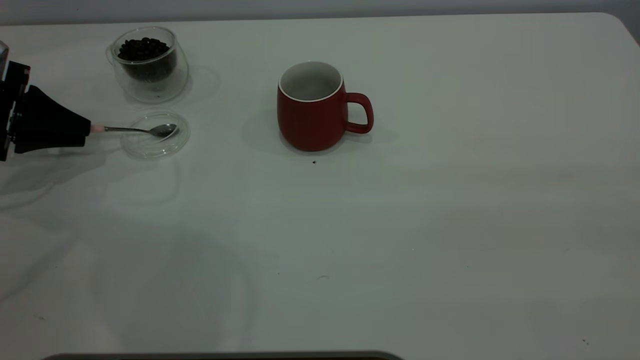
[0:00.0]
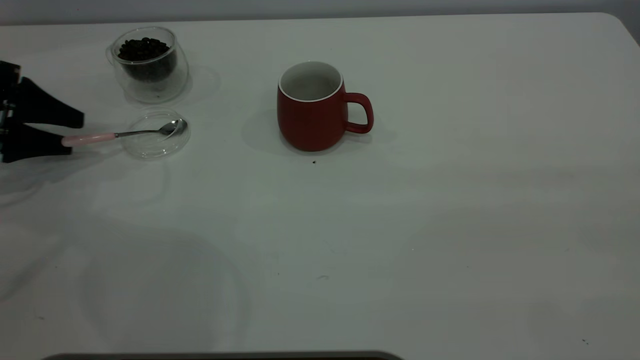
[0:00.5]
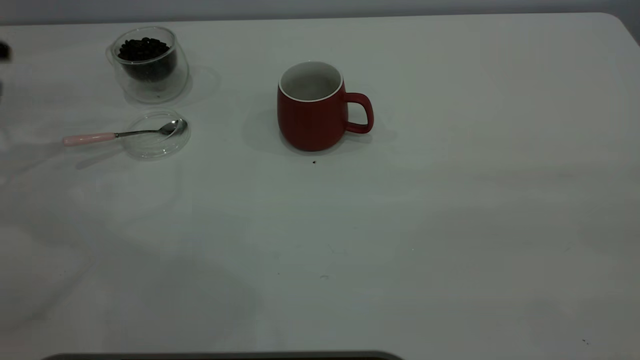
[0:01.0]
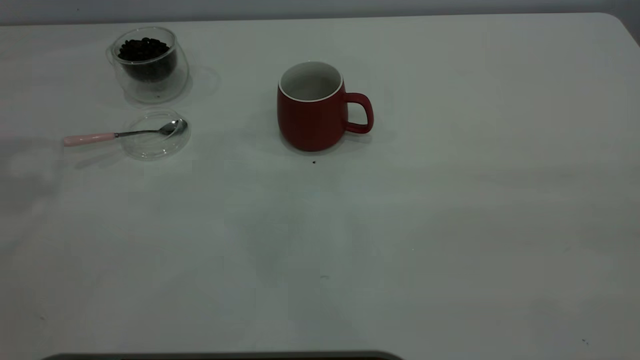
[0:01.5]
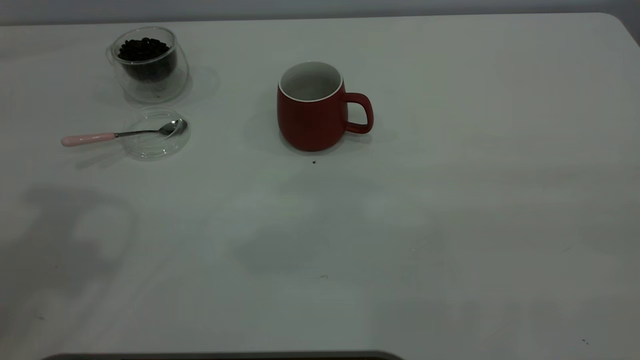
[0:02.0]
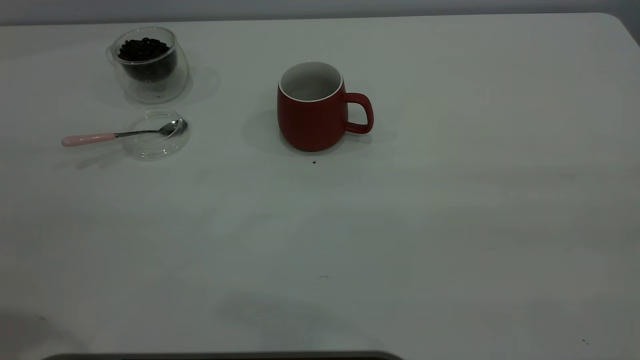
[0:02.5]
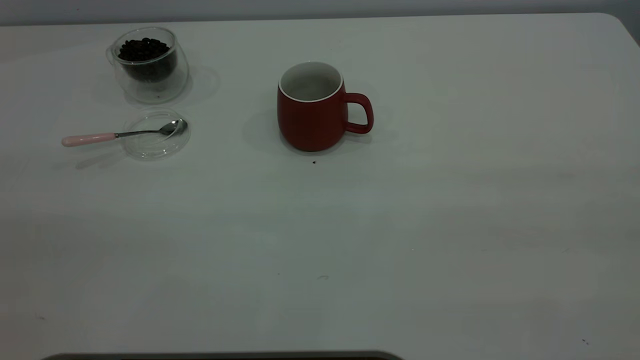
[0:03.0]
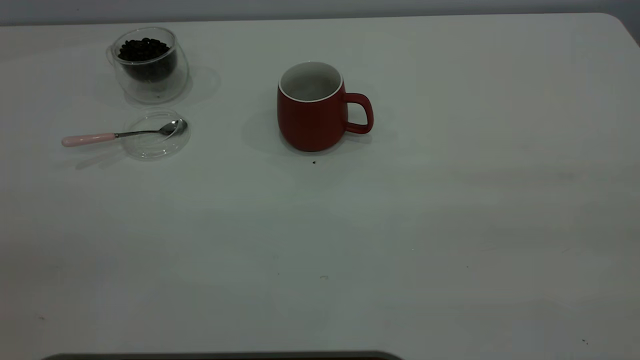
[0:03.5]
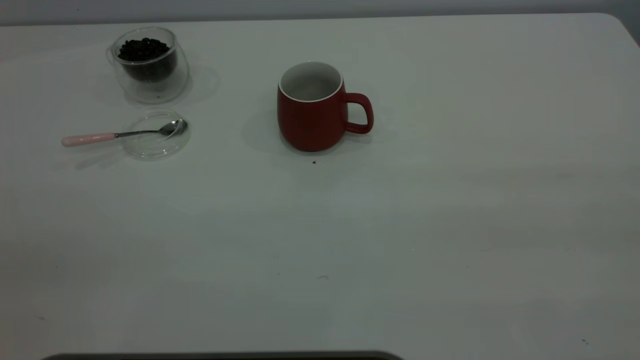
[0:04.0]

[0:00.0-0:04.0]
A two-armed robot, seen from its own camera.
Task of the whole recording: the right gripper place the red cup in the center of the table, the left gripper take the pink spoon from the cup lid and scoop out the coffee beans from the coffee cup and put them into the red cup, the left gripper put the spoon back into the cup lid.
0:00.0 to 0:02.0: The left gripper moves upward, backward and to the right, approximately 35 cm, and opens its fingers.

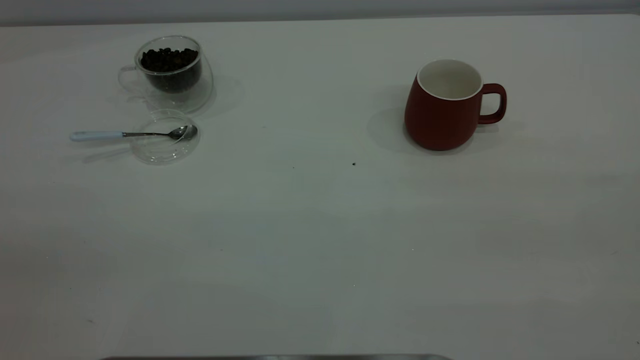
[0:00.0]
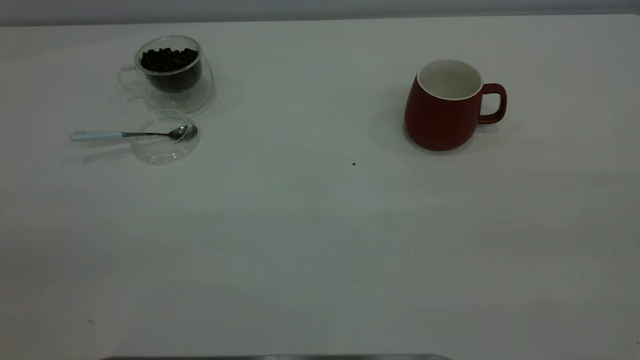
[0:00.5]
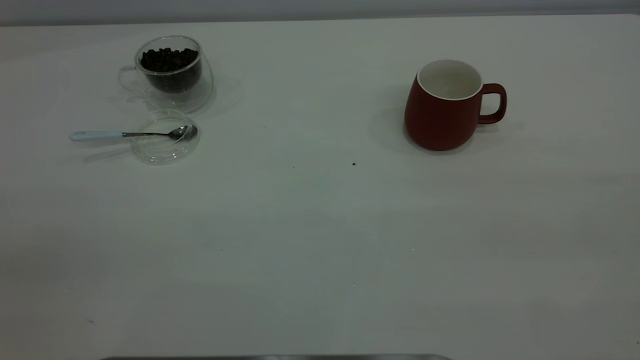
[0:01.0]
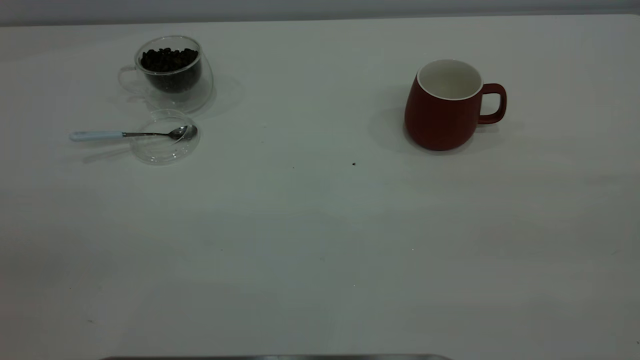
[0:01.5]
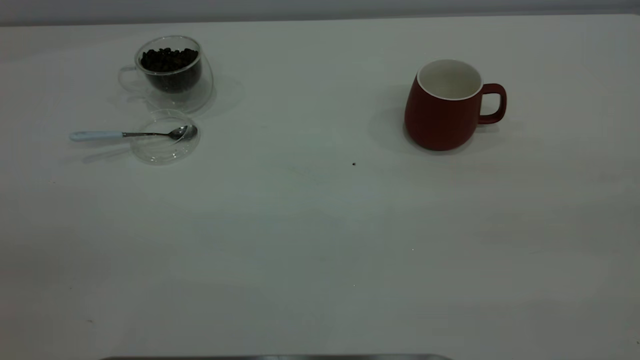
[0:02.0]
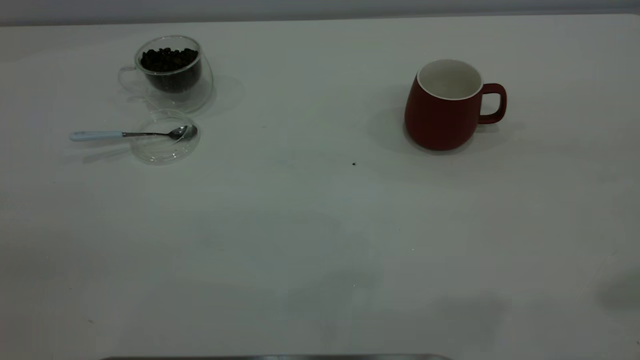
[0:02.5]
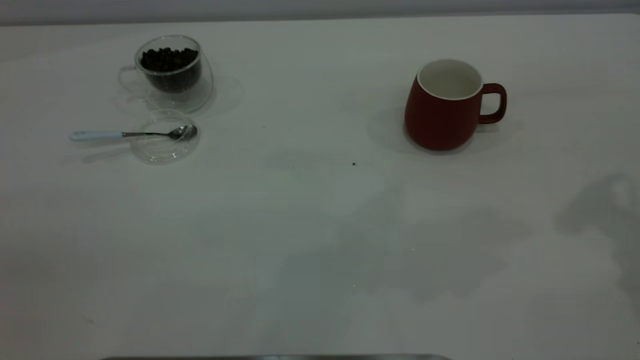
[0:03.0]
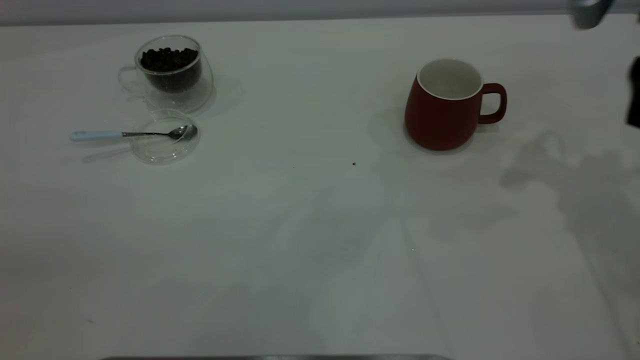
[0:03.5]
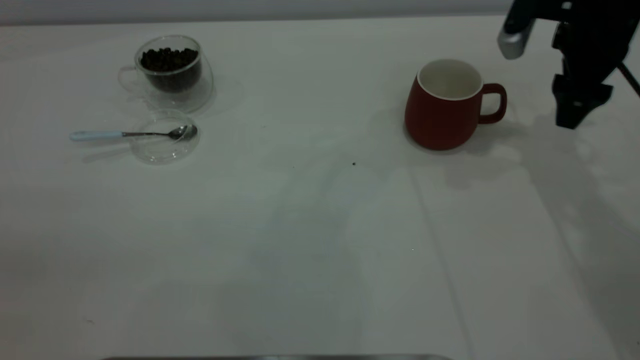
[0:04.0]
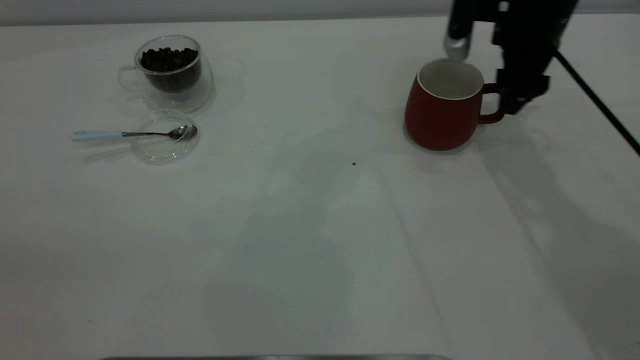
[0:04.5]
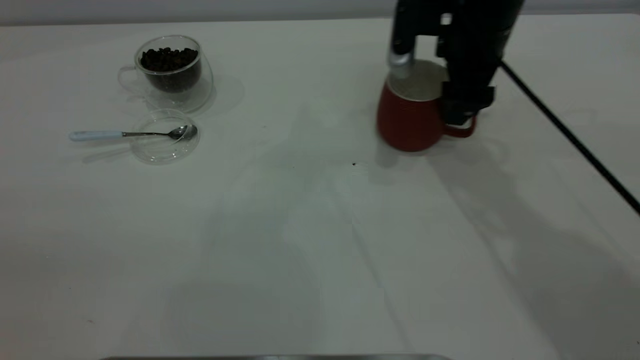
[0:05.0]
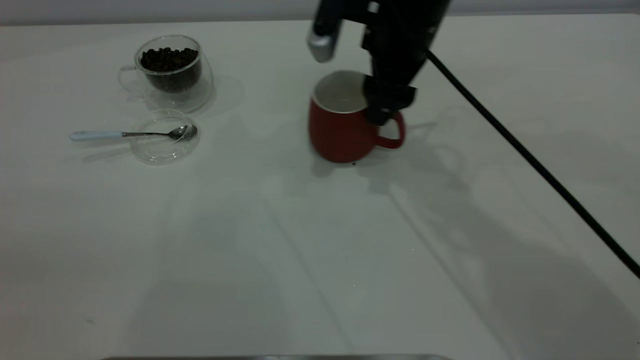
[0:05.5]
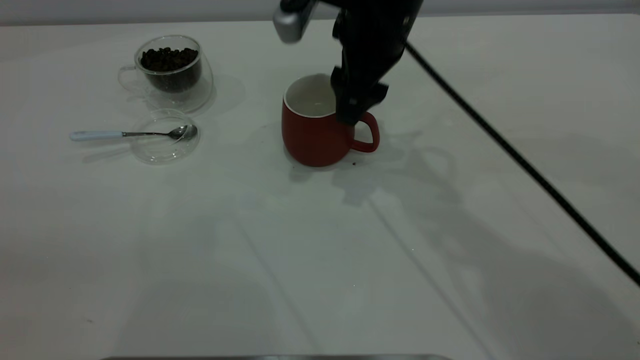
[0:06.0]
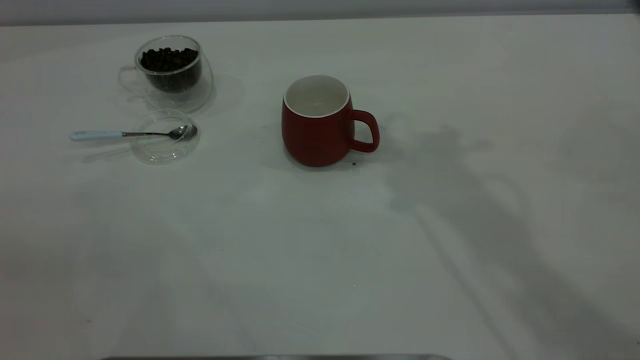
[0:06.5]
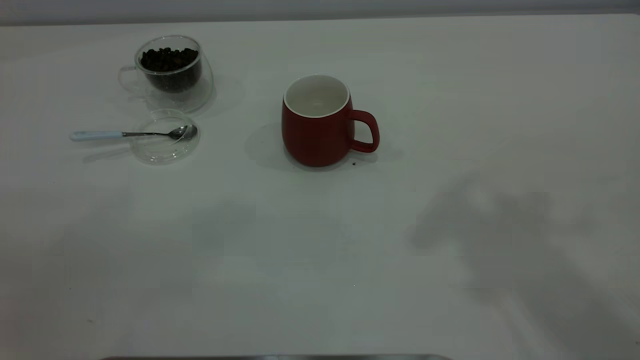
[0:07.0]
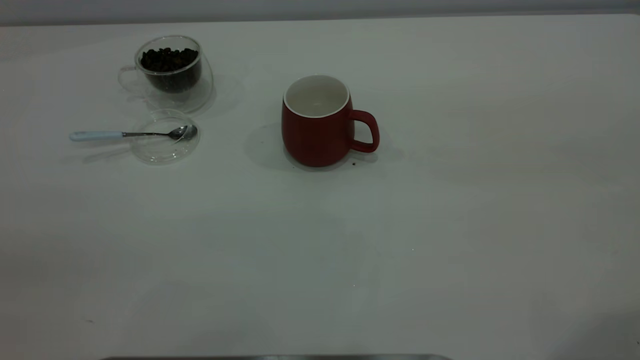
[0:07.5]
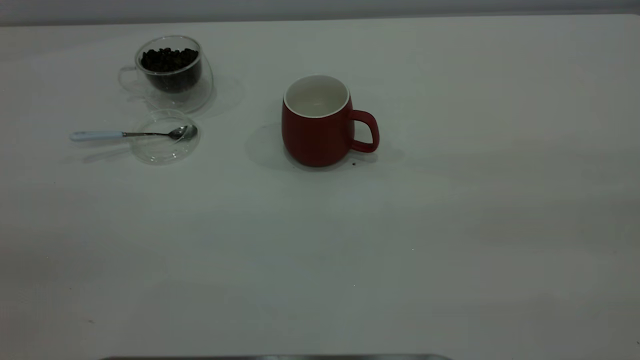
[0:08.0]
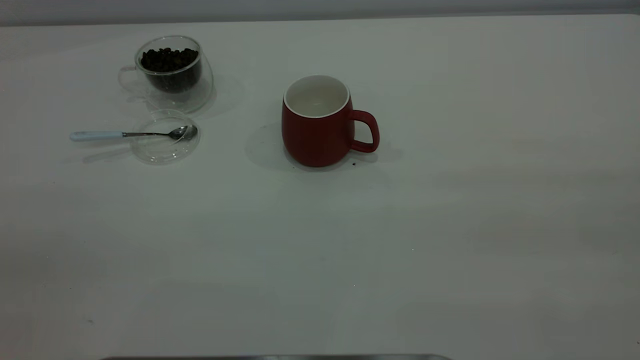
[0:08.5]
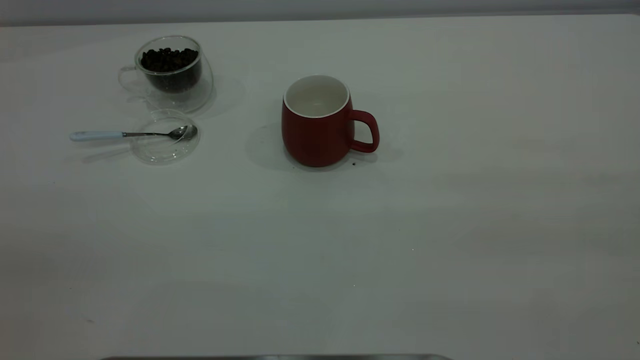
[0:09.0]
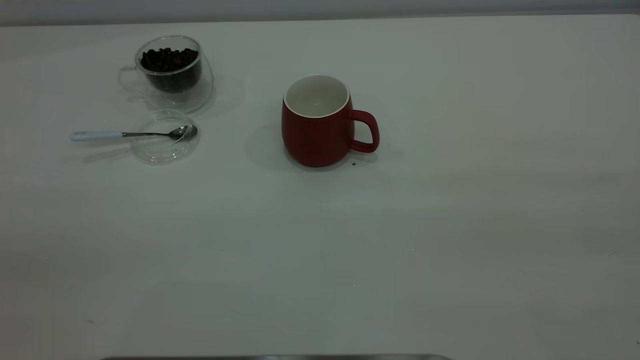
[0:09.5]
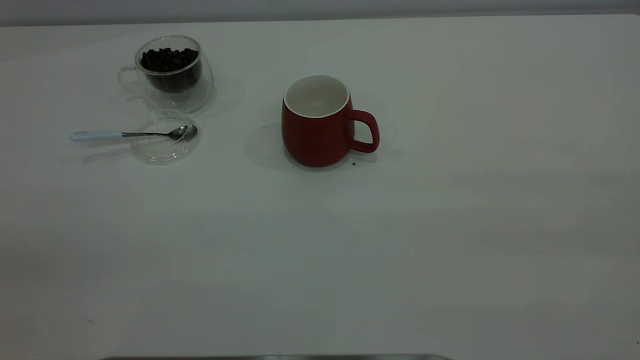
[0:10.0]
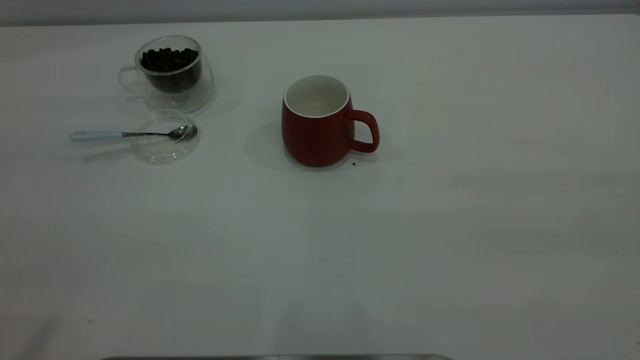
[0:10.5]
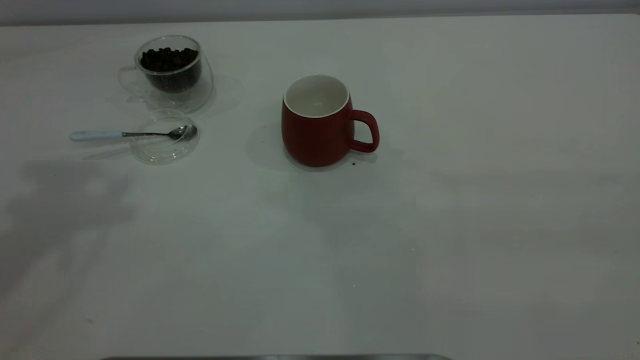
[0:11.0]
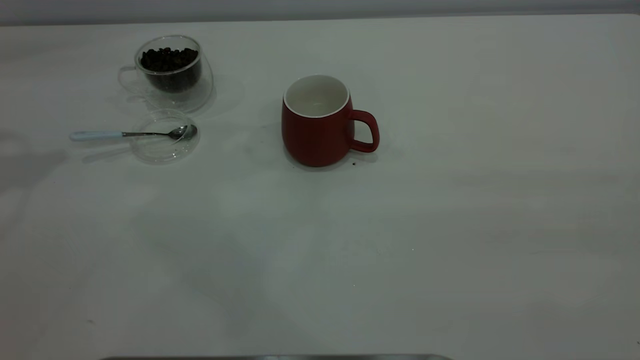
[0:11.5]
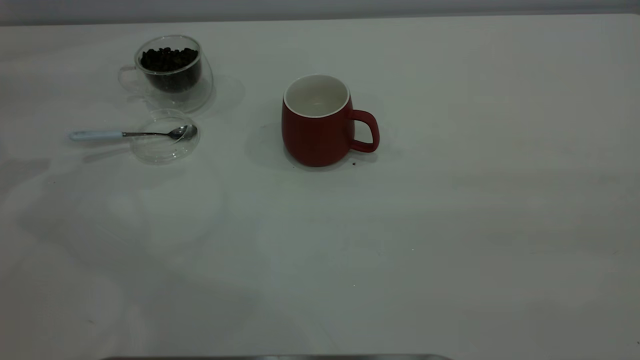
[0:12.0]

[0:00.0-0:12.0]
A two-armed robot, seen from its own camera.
Task of the whole recording: the right gripper place the red cup in the center of the table, the left gripper take the blue spoon from the cup lid and scoop out the coffee beans from the coffee cup and put them into the red cup, the left gripper put the spoon back into the cup lid.
Step, 0:00.0 to 0:06.0: Move the cup to the center of view.
0:02.0 to 0:04.0: The right gripper shifts roughly 50 cm forward and downward.
0:04.0 to 0:06.0: The right gripper is displaced to the left by about 20 cm.
0:06.0 to 0:08.0: The right gripper is displaced backward, to the right and upward by approximately 50 cm.

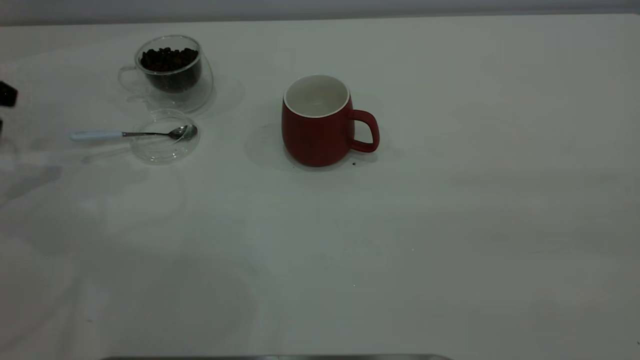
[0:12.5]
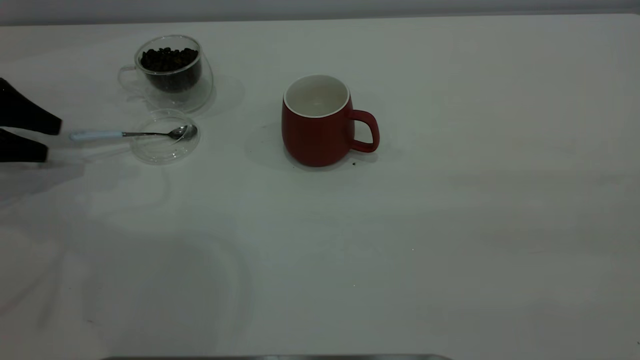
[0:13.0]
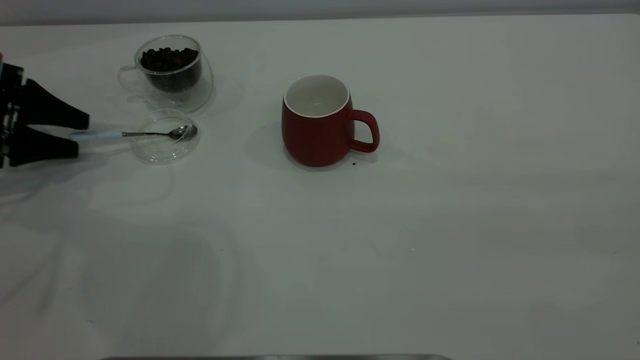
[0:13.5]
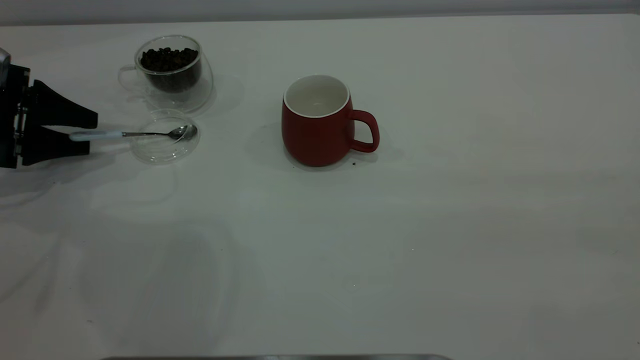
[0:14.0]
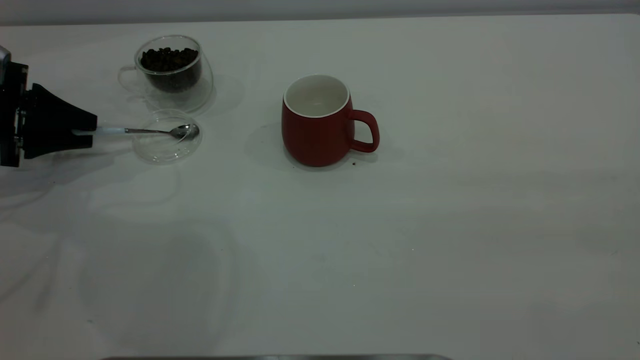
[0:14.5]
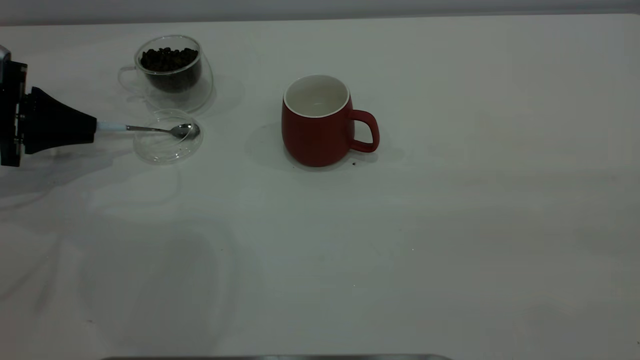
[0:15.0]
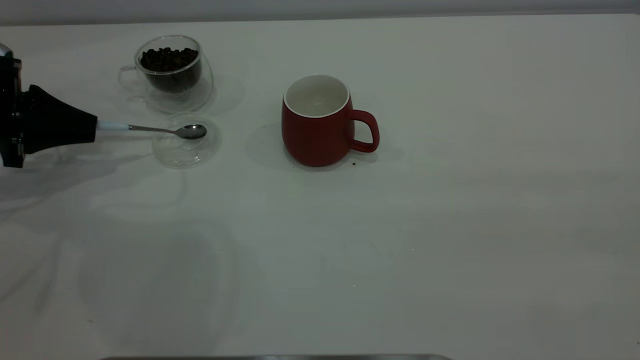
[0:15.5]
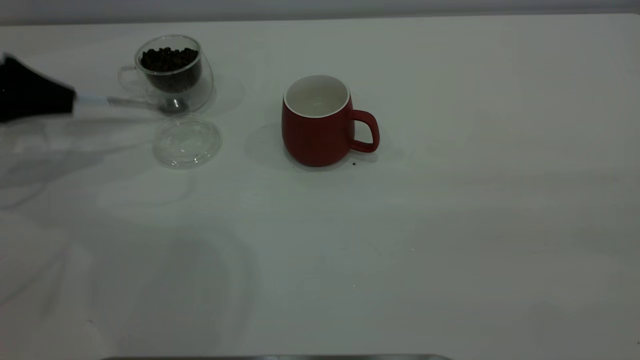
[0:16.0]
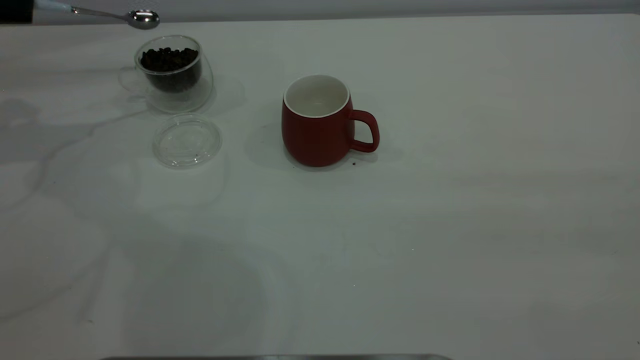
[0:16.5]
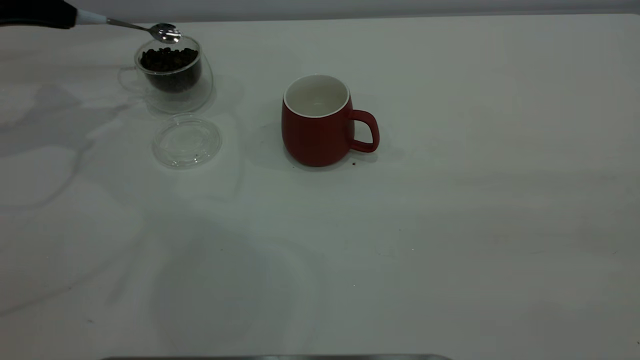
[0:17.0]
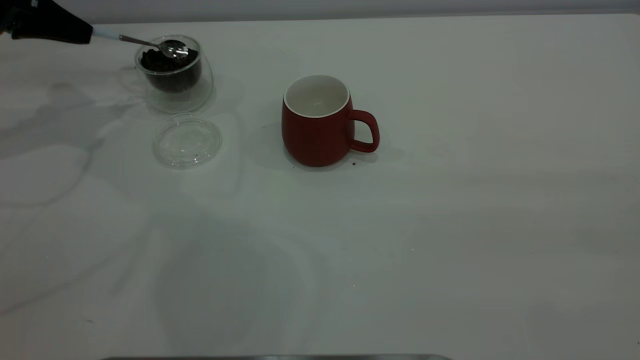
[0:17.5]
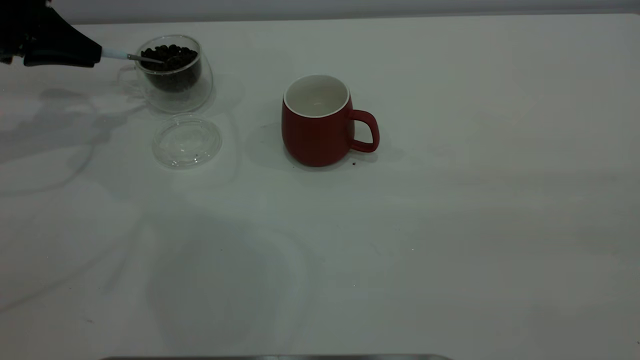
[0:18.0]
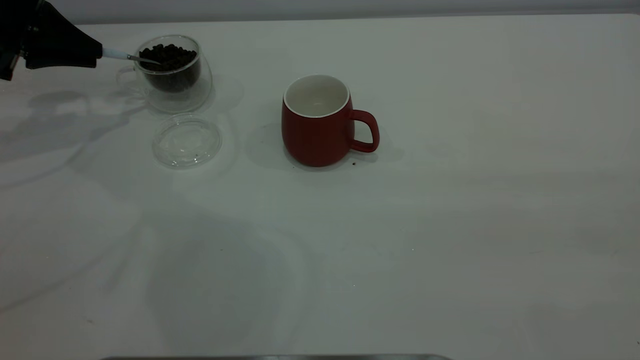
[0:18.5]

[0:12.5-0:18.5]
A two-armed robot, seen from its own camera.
Task of the whole recording: the right gripper place the red cup in the center of the table, the left gripper take the blue spoon from the cup lid and scoop out the coffee beans from the coffee cup and put them into the red cup, the left gripper put the spoon back into the cup lid.
Step, 0:12.5 to 0:15.5: Pick up the spoon.
0:12.5 to 0:14.5: The left gripper shifts roughly 5 cm downward, and closes its fingers.
0:14.5 to 0:16.5: The left gripper heads upward, covering approximately 15 cm, and closes up.
0:16.5 to 0:18.5: The left gripper shifts by roughly 5 cm.
